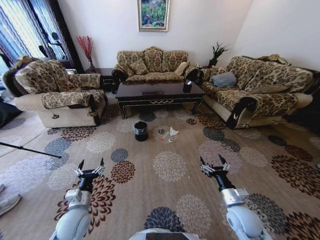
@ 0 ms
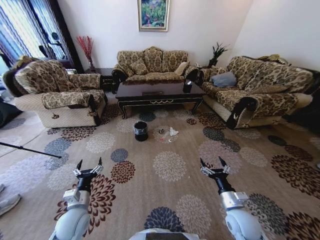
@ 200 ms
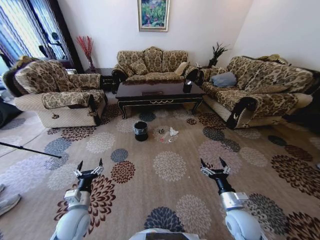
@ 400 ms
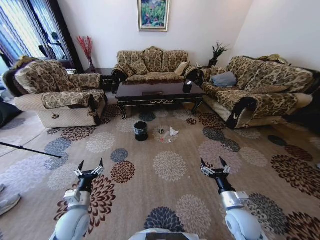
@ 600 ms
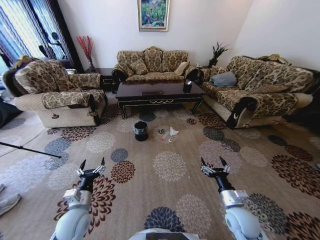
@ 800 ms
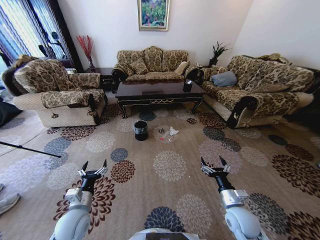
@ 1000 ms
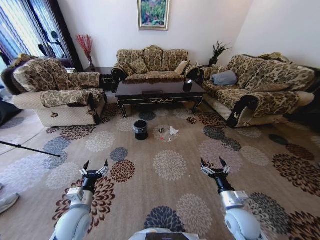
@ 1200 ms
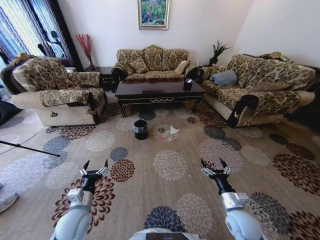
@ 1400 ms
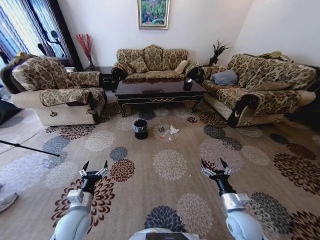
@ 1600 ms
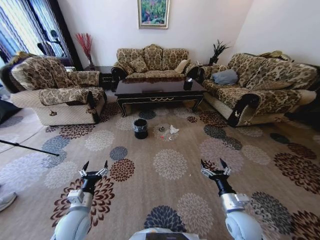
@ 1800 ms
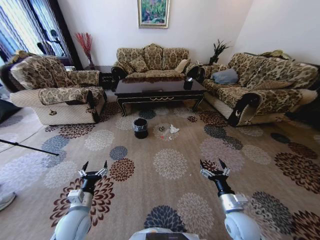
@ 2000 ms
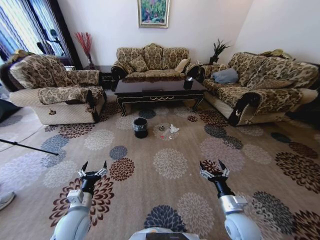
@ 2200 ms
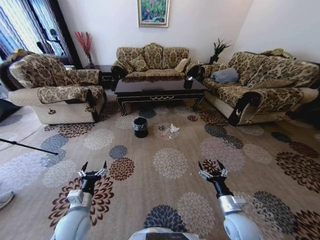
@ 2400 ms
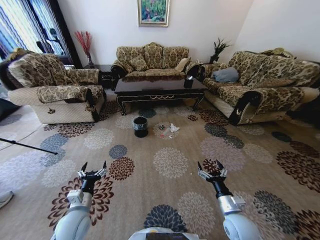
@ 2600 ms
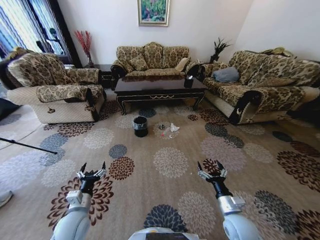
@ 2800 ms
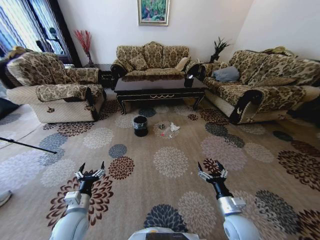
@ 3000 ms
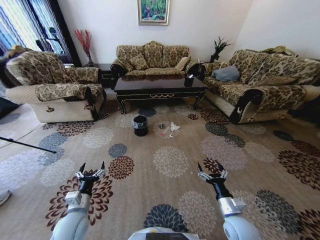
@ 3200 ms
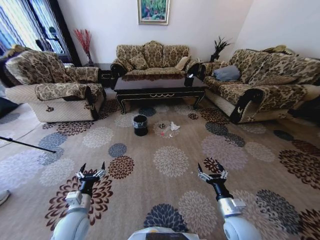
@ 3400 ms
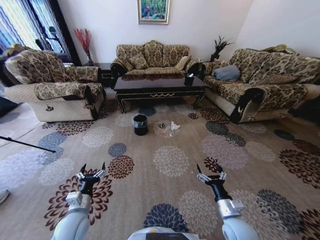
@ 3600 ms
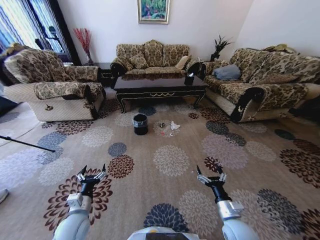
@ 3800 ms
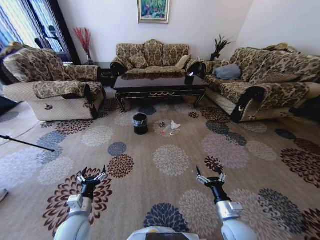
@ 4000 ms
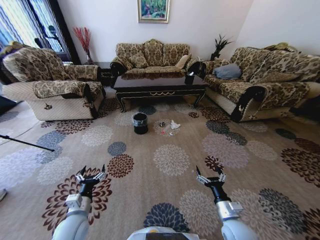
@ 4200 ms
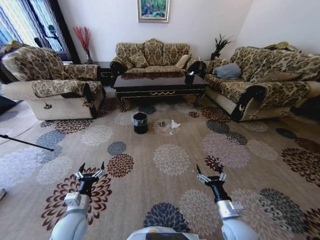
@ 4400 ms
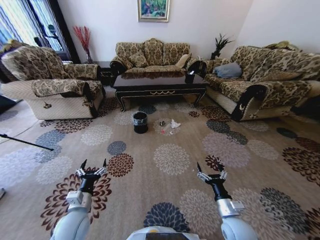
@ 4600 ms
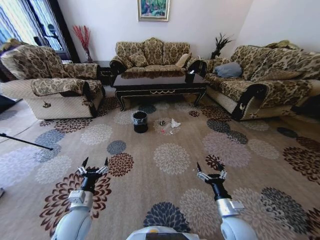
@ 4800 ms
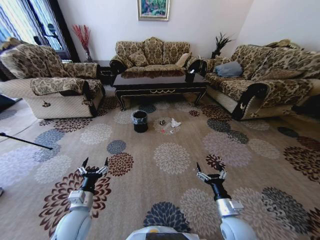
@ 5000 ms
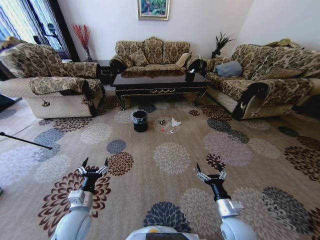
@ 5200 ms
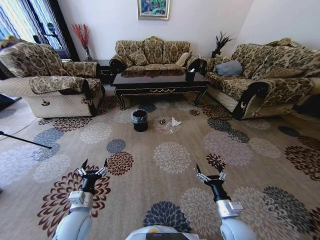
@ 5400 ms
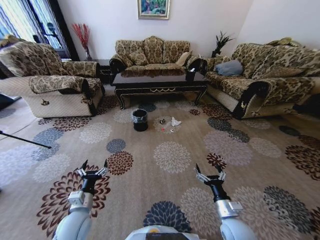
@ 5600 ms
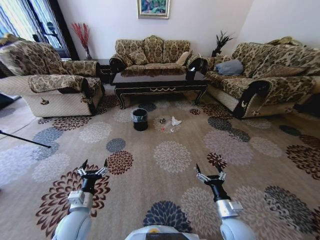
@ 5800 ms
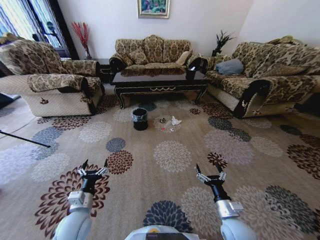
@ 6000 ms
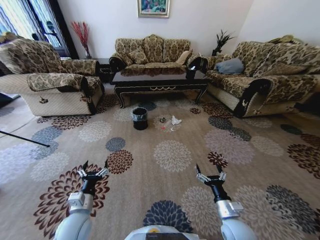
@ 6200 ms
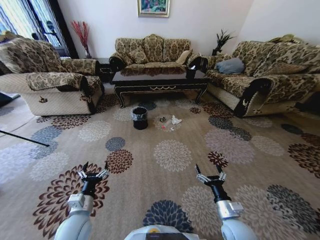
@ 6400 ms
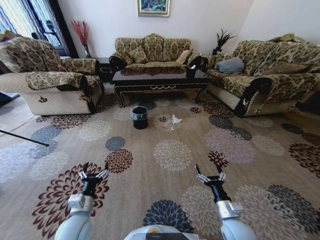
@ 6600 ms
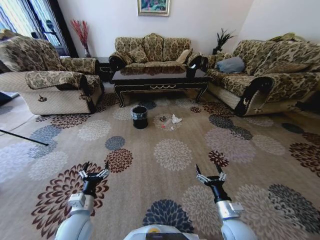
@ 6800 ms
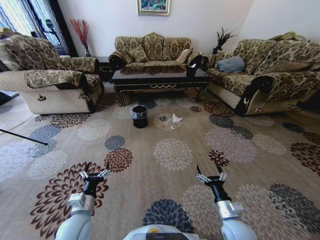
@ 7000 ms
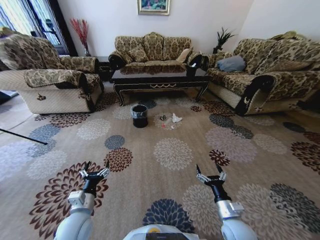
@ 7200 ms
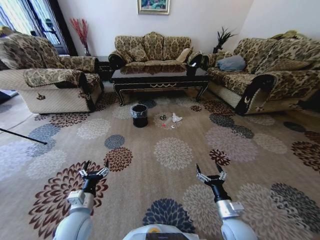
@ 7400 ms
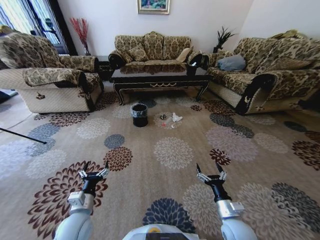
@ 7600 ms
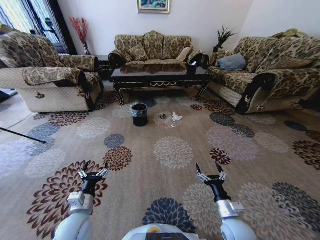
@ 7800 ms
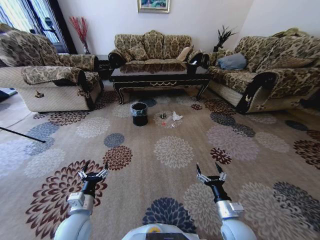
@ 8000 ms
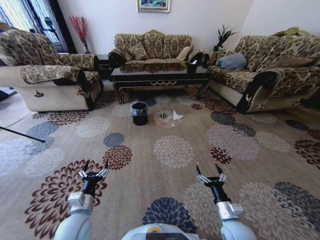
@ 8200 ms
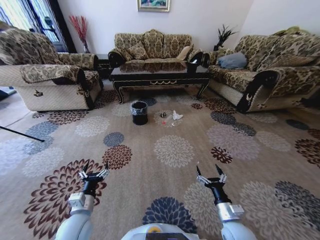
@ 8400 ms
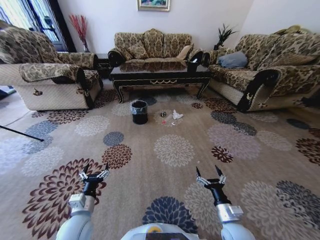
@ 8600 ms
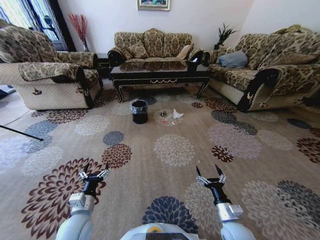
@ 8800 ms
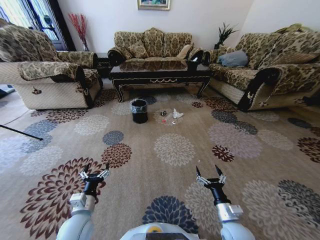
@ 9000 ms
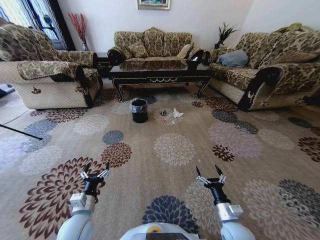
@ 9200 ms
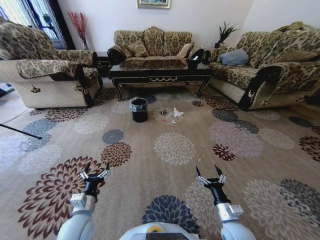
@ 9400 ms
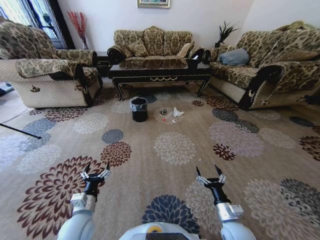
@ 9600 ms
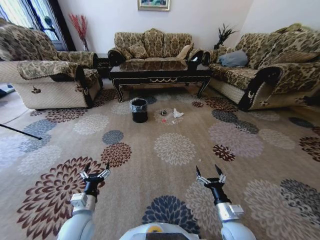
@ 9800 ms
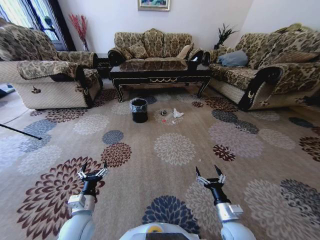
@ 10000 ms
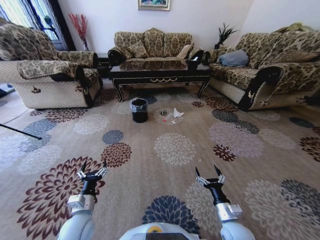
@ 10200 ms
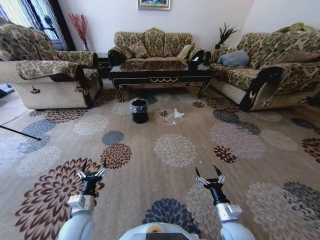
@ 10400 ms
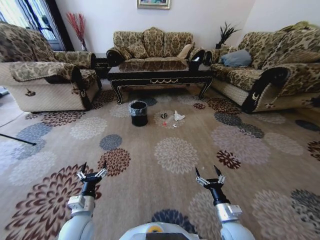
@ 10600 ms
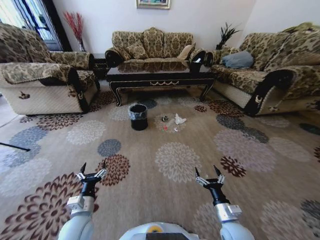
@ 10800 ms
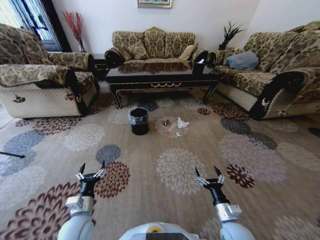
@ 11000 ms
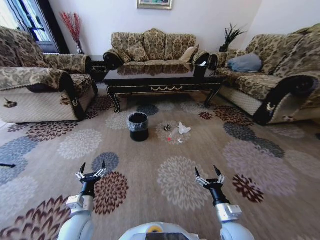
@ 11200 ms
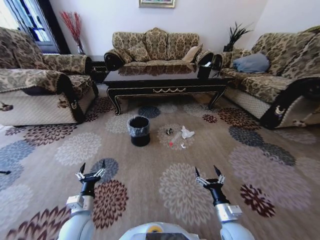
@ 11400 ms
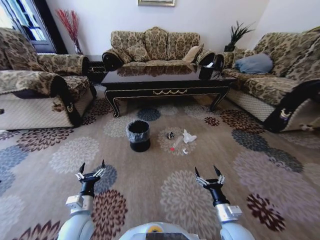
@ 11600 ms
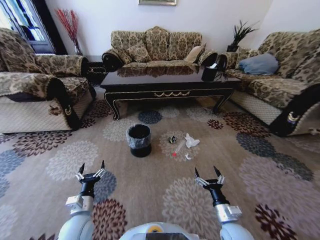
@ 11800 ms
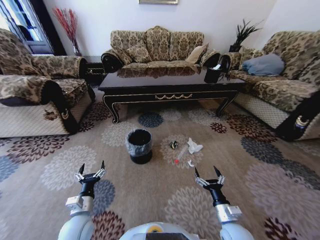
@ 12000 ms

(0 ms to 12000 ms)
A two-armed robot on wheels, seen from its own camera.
Task of the whole recording: Move to the front of the table and pick up the trash from the floor, then place it into the trash bin.
9000 ms - 10400 ms: There are only small adjustments of the grippers.

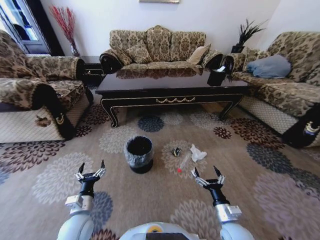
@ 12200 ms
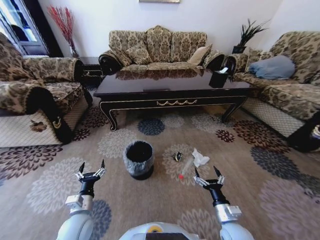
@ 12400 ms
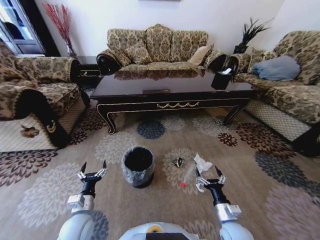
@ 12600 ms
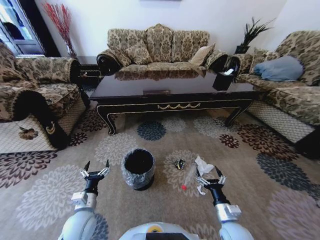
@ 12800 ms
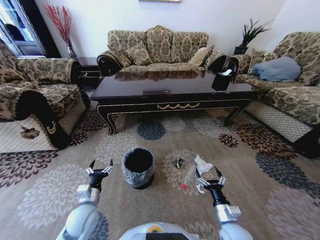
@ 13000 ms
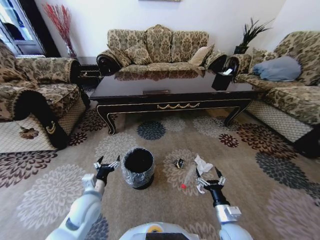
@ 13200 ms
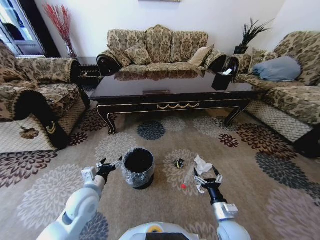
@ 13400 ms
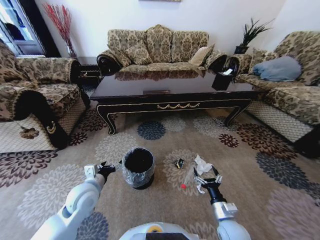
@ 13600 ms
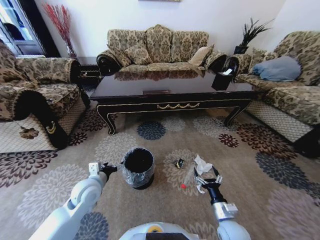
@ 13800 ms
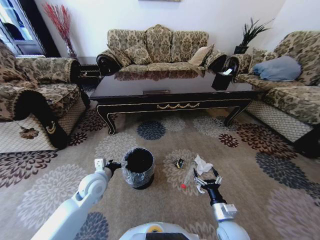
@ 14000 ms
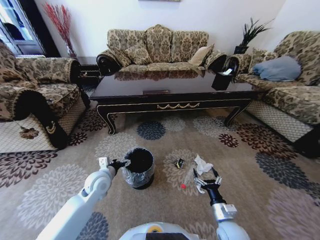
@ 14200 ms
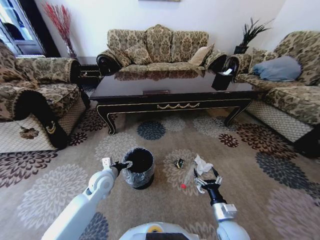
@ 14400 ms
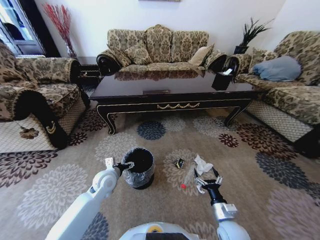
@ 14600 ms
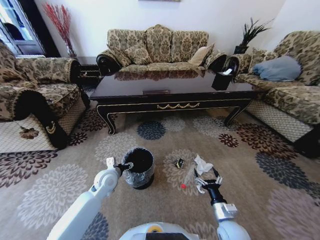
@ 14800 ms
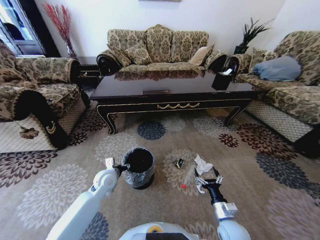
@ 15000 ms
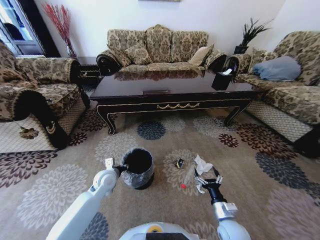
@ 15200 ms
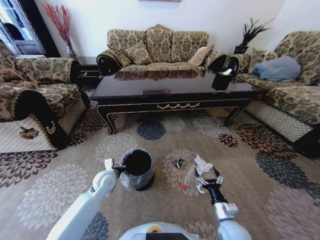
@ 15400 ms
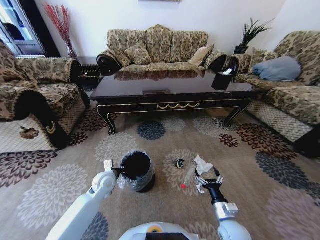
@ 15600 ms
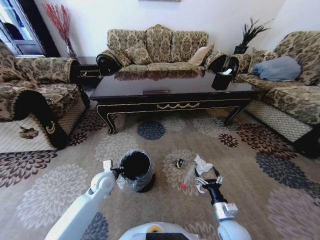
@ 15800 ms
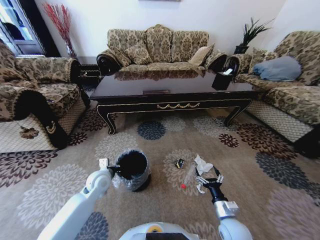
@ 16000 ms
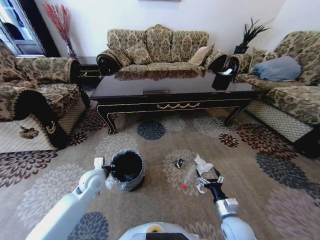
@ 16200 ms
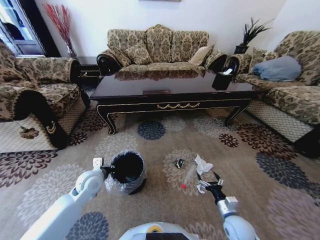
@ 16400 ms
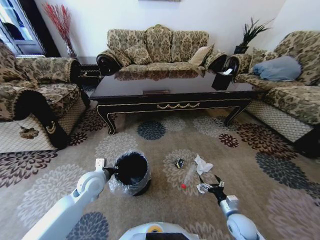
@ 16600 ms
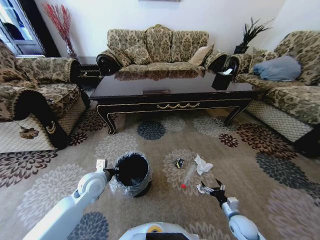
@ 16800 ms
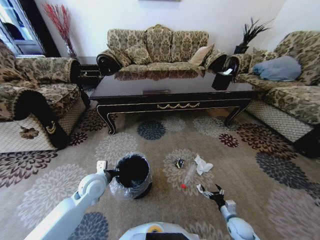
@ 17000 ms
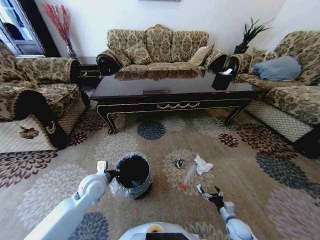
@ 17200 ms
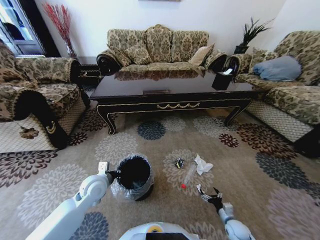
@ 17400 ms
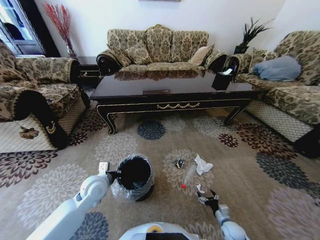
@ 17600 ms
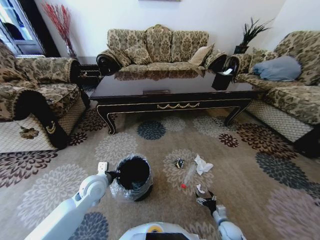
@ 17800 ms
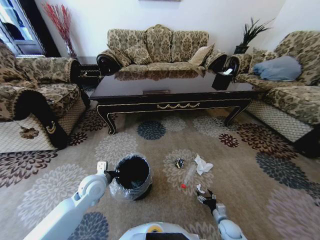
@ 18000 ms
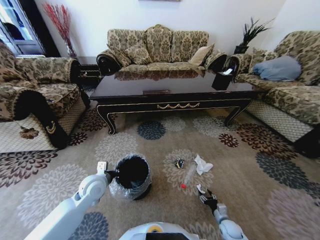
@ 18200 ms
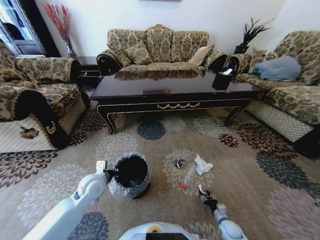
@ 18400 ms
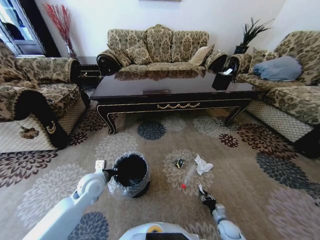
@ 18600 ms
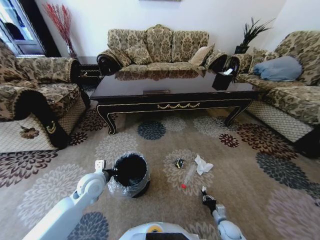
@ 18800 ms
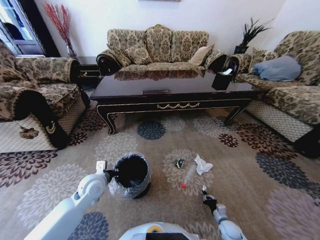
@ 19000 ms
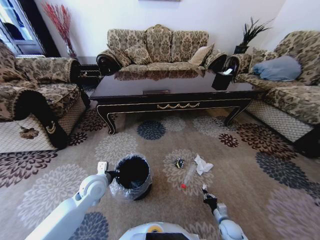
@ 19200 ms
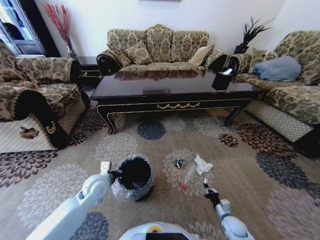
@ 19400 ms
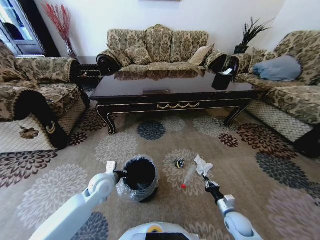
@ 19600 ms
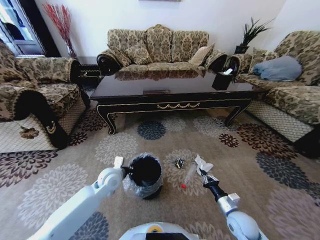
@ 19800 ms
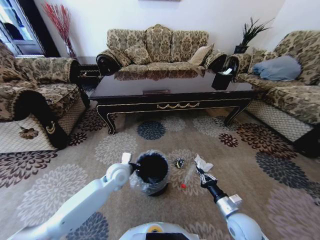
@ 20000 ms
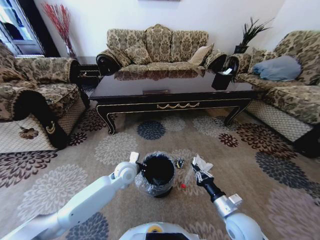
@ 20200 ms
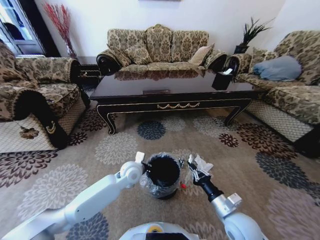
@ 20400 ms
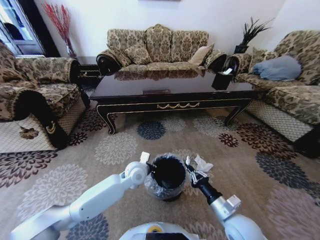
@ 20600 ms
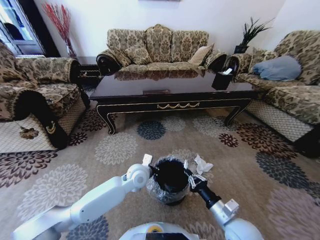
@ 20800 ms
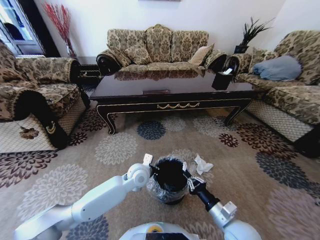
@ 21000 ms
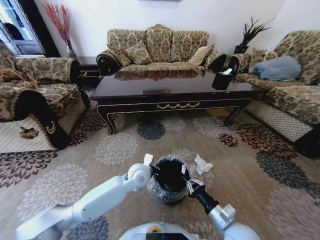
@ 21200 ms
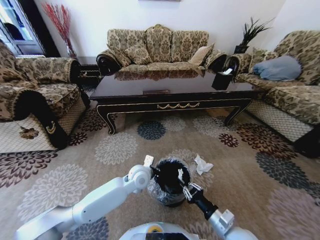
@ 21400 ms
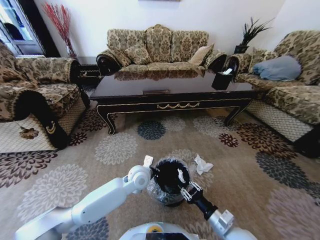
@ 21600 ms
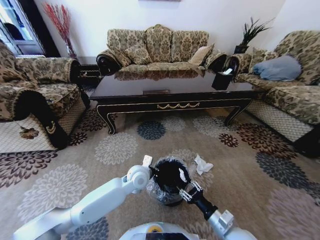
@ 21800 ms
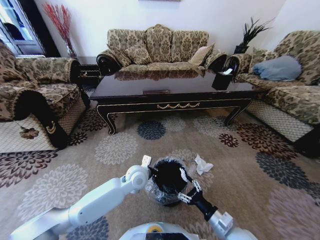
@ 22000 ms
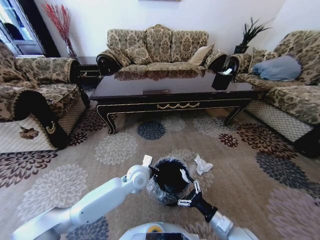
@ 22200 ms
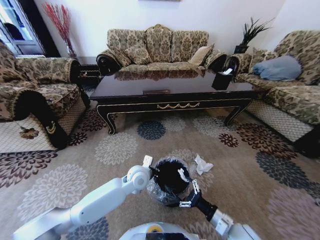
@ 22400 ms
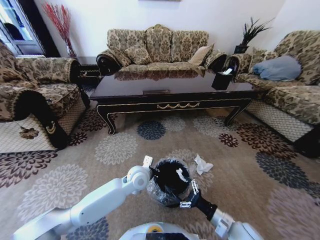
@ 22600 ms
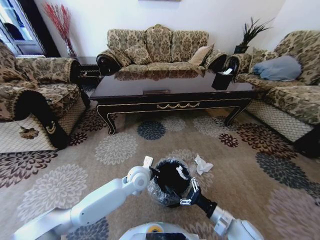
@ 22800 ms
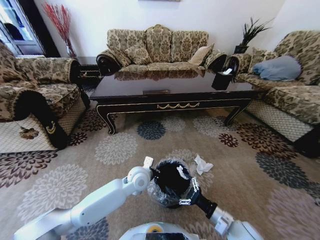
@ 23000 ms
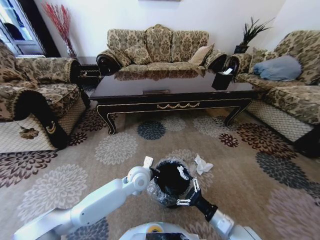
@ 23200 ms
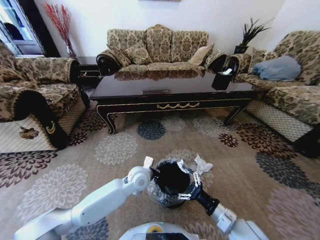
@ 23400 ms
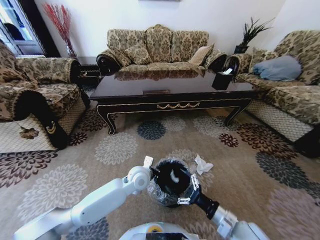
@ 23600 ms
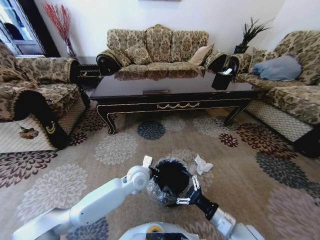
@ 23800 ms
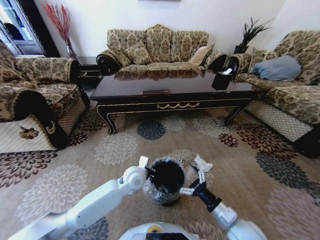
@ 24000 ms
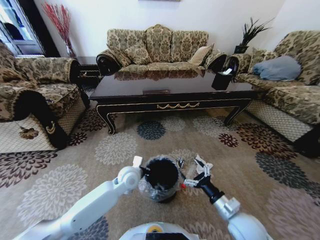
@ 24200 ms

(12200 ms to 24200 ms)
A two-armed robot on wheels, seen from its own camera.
Task of the whole recording: Move to the front of the table and pick up the trash from the floor, then place it into the trash bin.
12200 ms - 13800 ms: The left gripper goes approximately 15 cm forward and upward.
13800 ms - 15200 ms: The left gripper moves forward and downward, approximately 10 cm, and closes.
15200 ms - 16600 ms: The right gripper is displaced to the right by roughly 10 cm. The left gripper moves some 5 cm, and closes up.
16600 ms - 18200 ms: The right gripper shifts roughly 15 cm downward.
18200 ms - 19800 ms: The right gripper goes about 15 cm upward, and closes, while the left gripper travels to the right by approximately 5 cm.
19800 ms - 21200 ms: The right gripper moves upward, to the left and backward, roughly 15 cm. The left gripper goes some 15 cm to the right.
21200 ms - 22600 ms: The right gripper opens its fingers.
